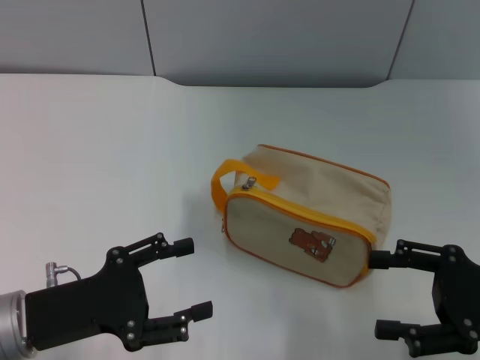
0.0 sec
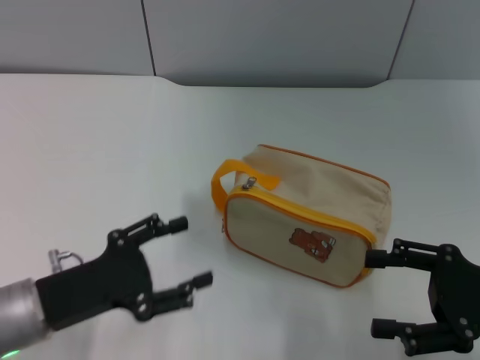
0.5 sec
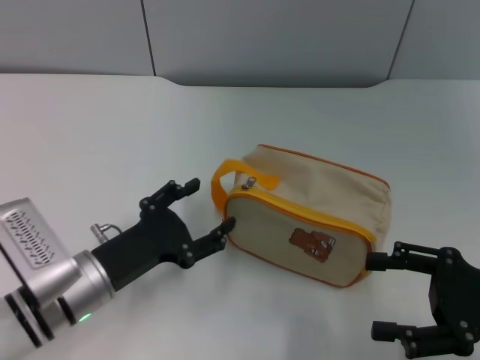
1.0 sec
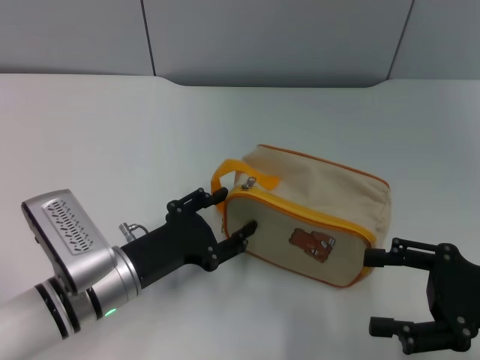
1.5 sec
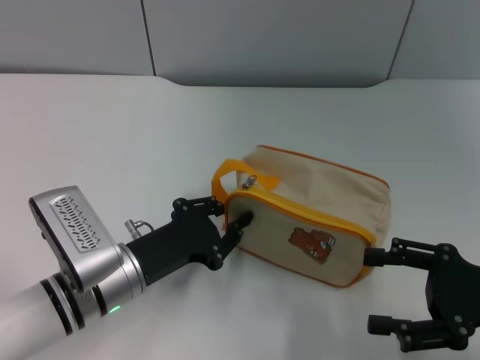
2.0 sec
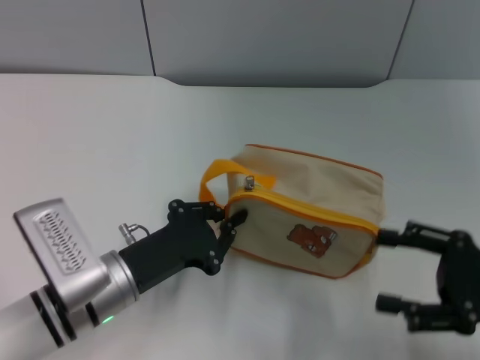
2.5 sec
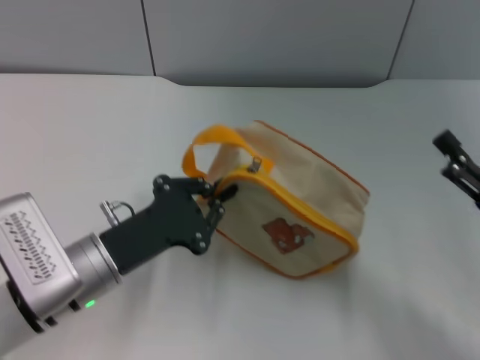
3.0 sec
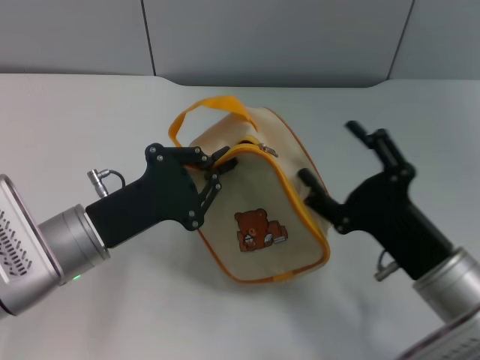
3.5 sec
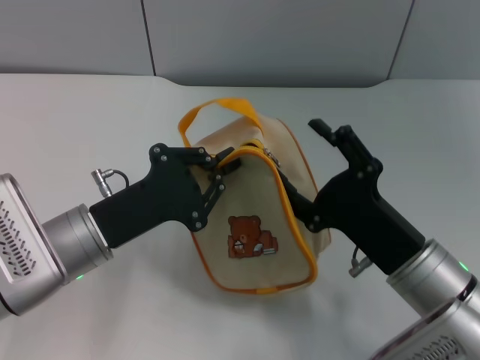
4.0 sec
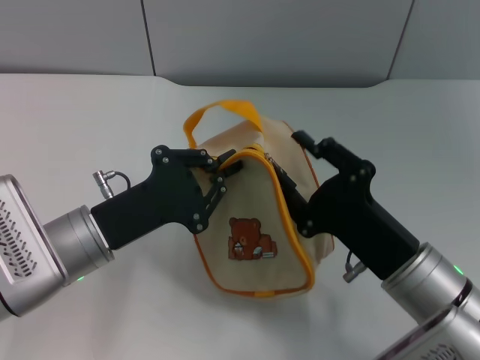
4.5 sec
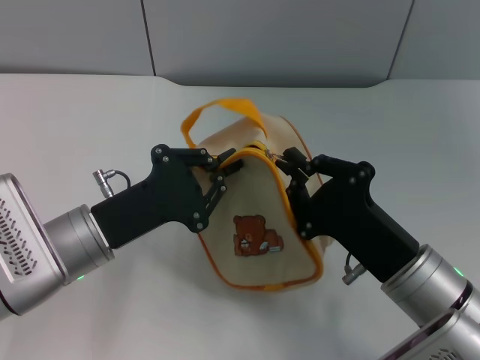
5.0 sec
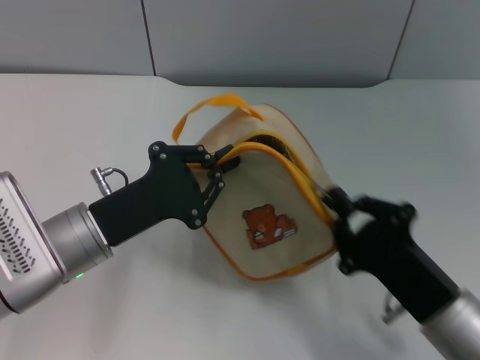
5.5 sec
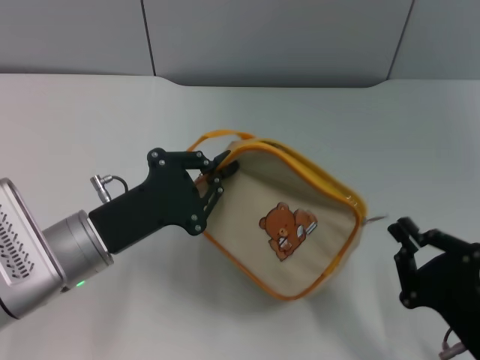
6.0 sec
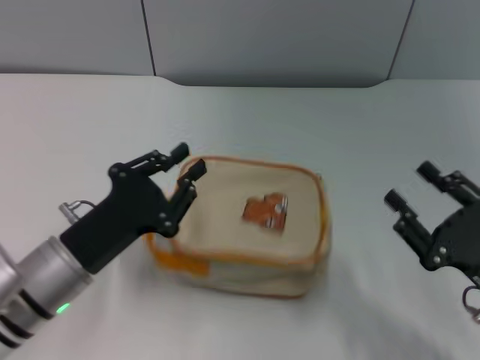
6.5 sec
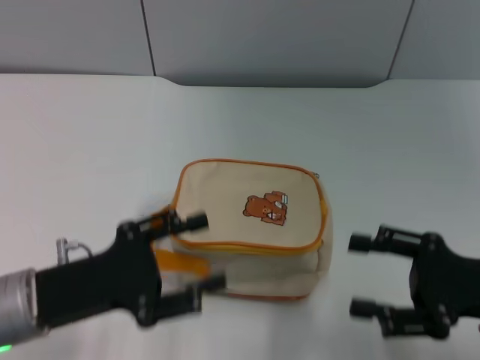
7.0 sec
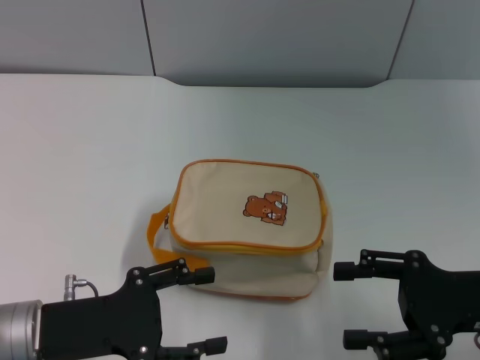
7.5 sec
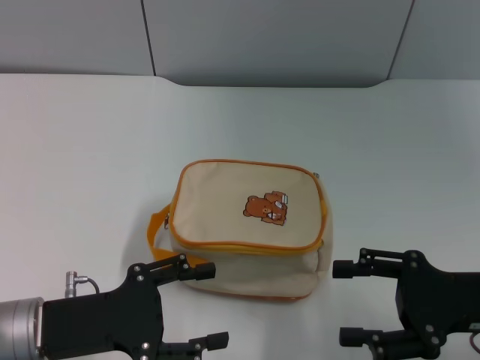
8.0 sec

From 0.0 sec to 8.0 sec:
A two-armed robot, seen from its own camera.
Step, from 0.0 sec to 2.5 sec: Pick up the bag with left gripper.
Step, from 3.5 sec to 6.0 sec: Unzip the zipper of bag with right gripper.
From 0.0 sec to 2.0 sec: The left gripper heads to the right and forward, covering roughly 10 cm, and closes.
From 2.0 sec to 4.0 sec: The right gripper is displaced to the left by about 15 cm. Meanwhile the left gripper moves some 5 cm, and closes its fingers.
From 4.0 sec to 6.0 sec: The right gripper shifts some 10 cm backward and to the right, and closes up.
From 6.0 sec to 8.0 sec: The left gripper heads backward, covering roughly 5 cm, and opens up. Meanwhile the right gripper goes about 10 cm forward and upward, and opens its fingers.
